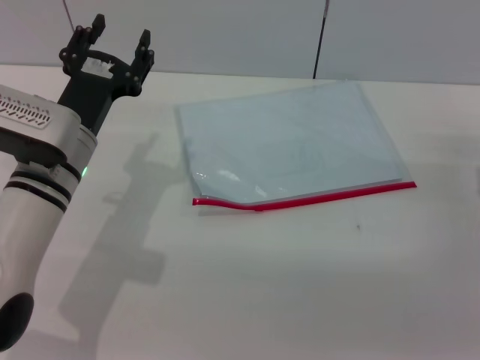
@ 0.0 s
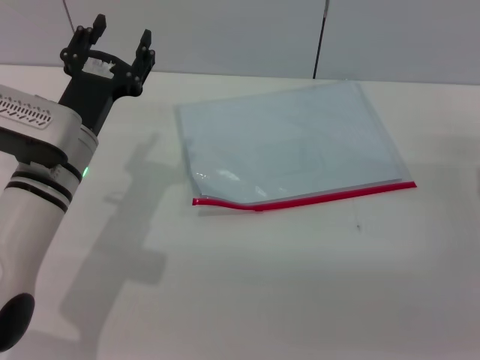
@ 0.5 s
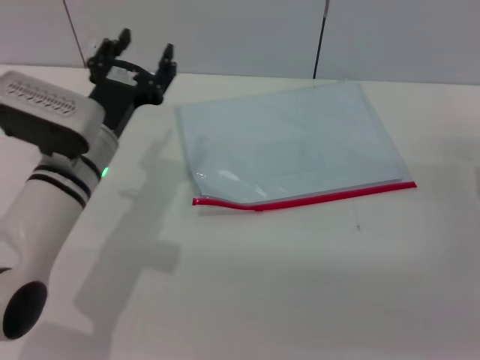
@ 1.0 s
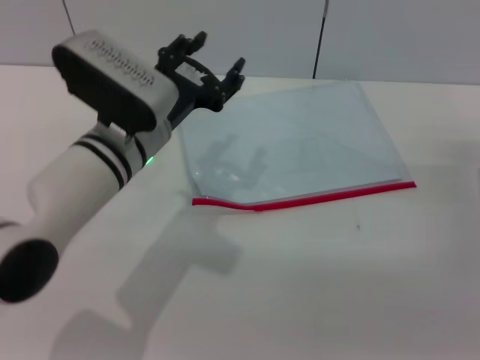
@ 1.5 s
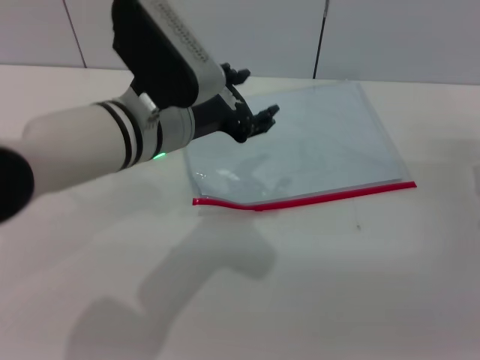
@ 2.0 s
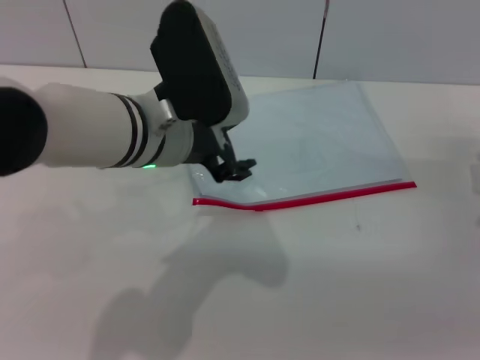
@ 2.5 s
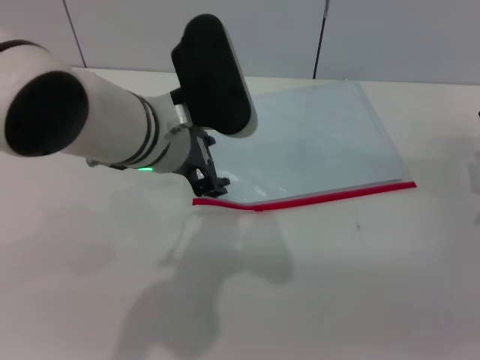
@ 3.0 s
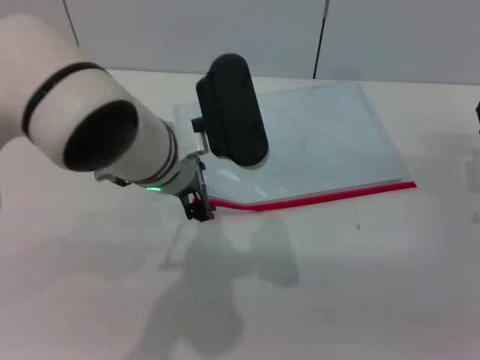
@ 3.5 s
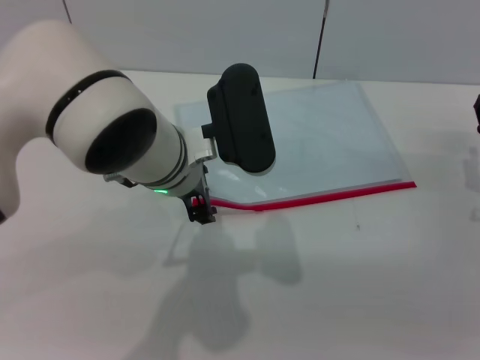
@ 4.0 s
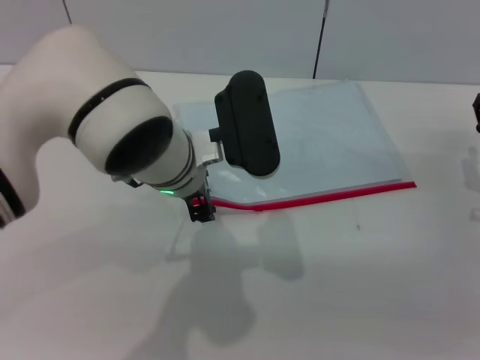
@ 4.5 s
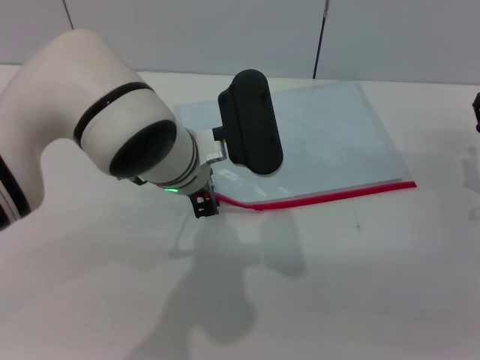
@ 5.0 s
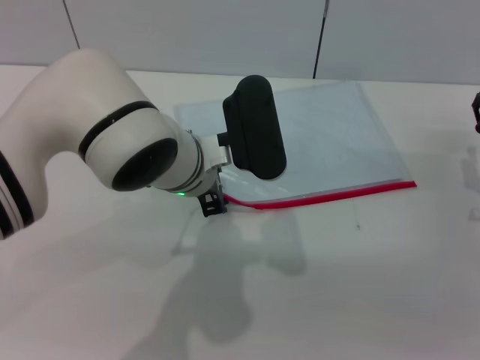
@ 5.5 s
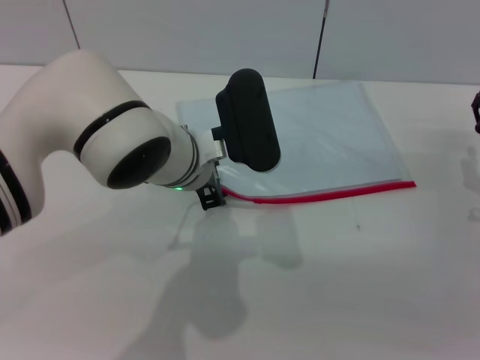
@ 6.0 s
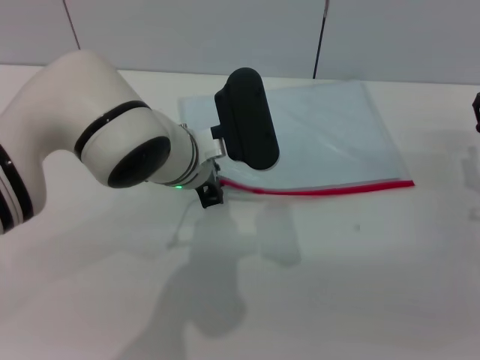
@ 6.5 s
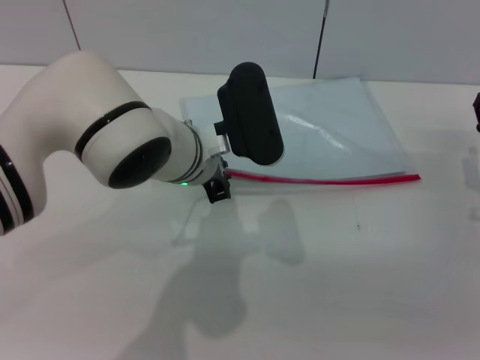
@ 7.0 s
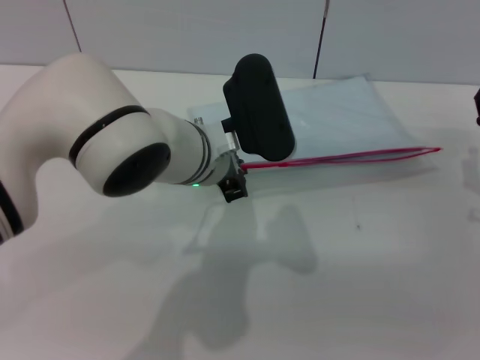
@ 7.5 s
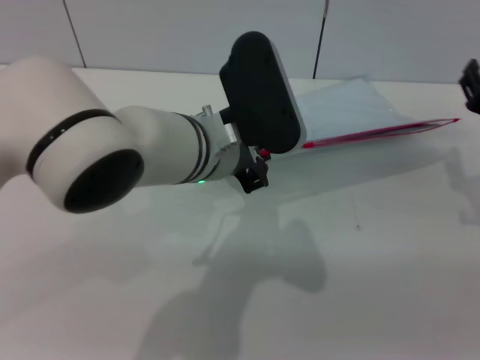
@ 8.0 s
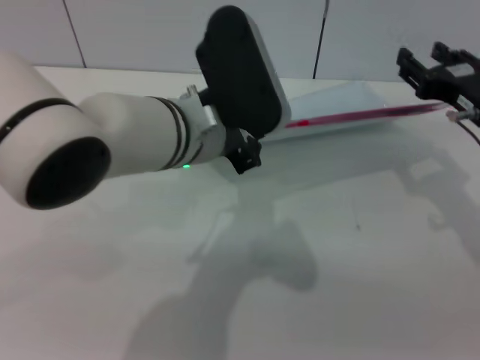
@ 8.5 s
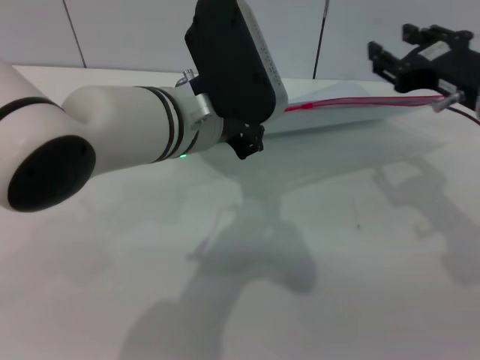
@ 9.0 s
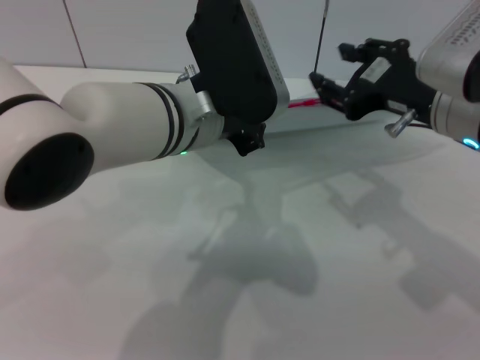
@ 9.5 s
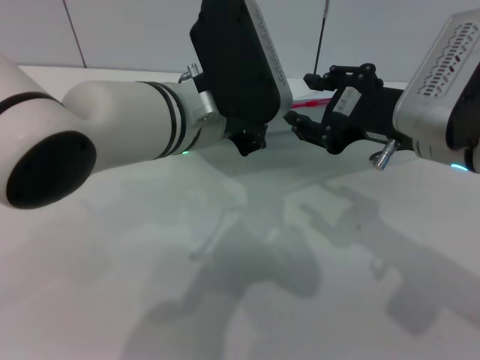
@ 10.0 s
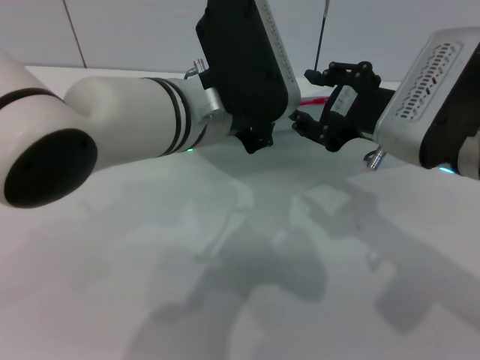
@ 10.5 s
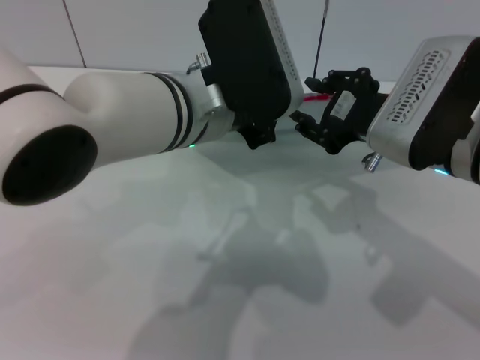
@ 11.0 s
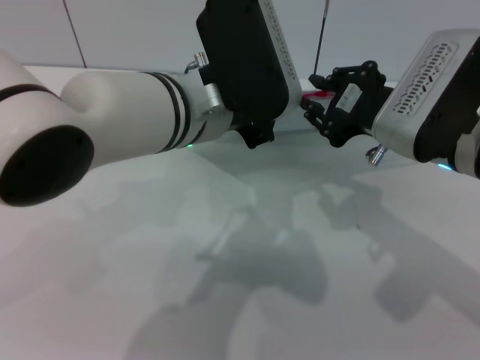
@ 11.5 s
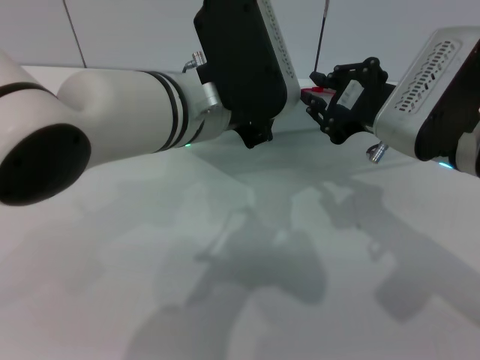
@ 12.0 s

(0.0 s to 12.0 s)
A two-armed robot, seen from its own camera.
Step, 0.0 s - 9.0 s: Pick up the transparent plastic bag with the left gripper.
0.0 s - 2.0 s: The left gripper shifts roughly 10 cm to the right and upward.
4.0 s - 6.0 s: The grippers stay close to where they were, moving slightly.
6.0 s - 8.0 s: The left gripper closes.
8.0 s - 10.0 s: The right gripper is displaced upward and to the left by approximately 15 cm.
10.0 s - 12.0 s: The right gripper closes its fingers.

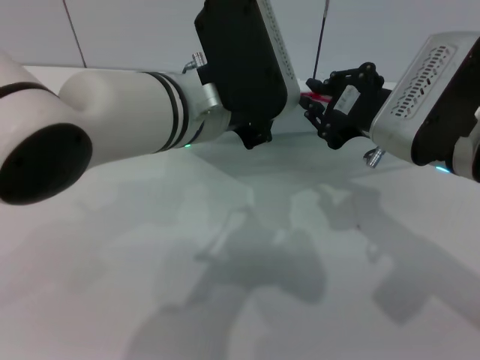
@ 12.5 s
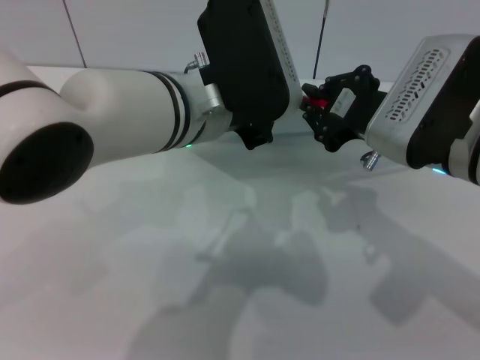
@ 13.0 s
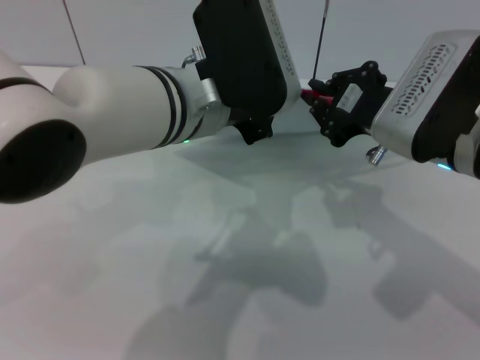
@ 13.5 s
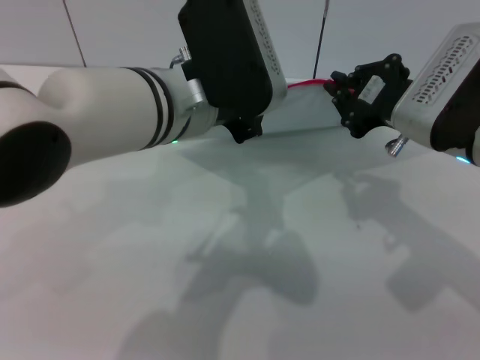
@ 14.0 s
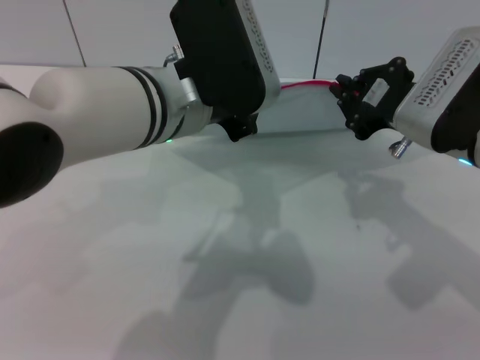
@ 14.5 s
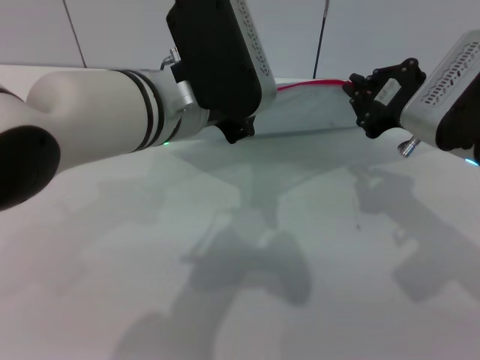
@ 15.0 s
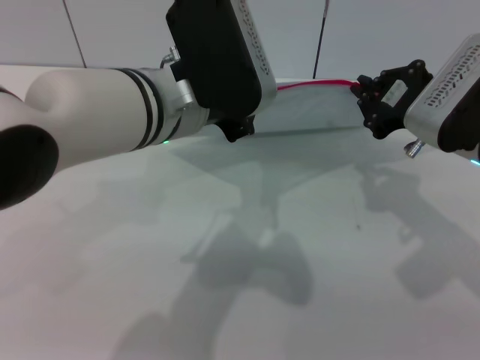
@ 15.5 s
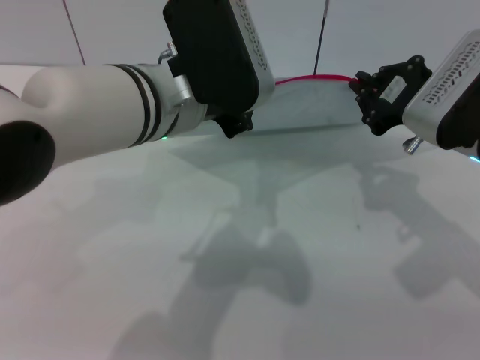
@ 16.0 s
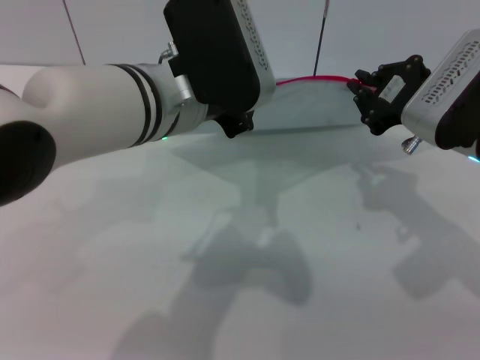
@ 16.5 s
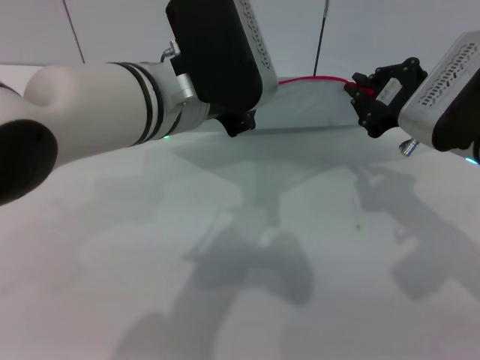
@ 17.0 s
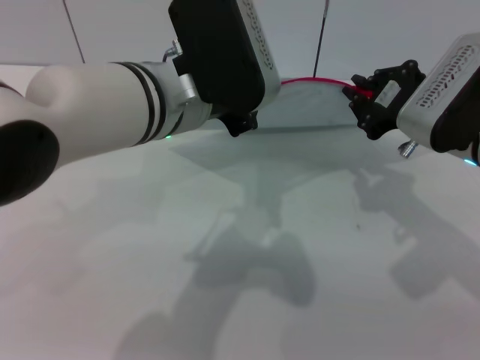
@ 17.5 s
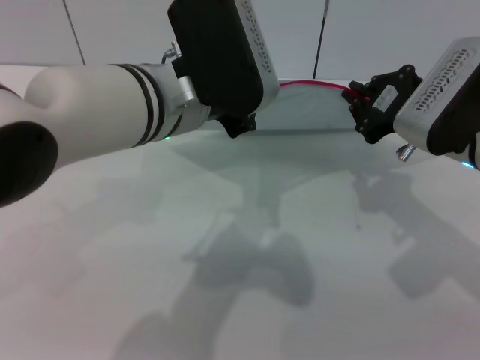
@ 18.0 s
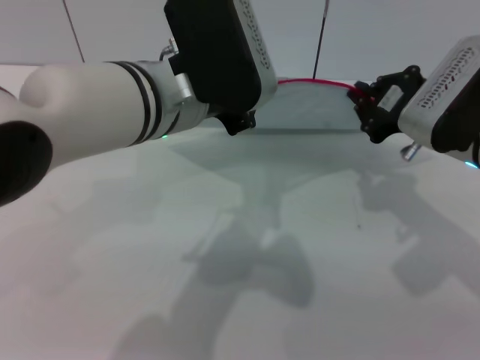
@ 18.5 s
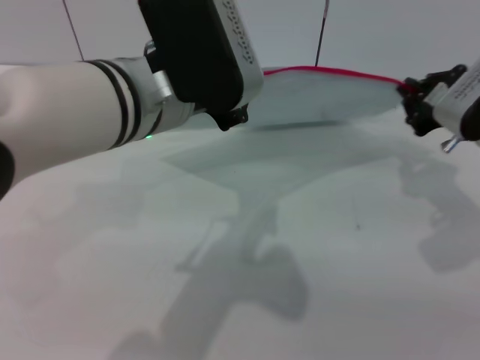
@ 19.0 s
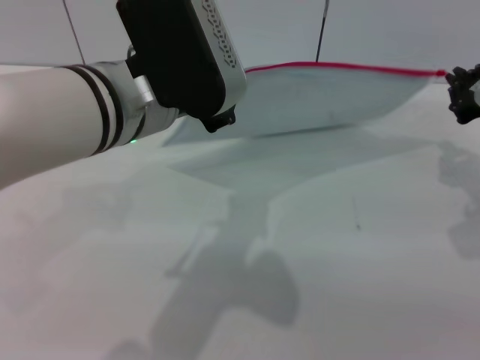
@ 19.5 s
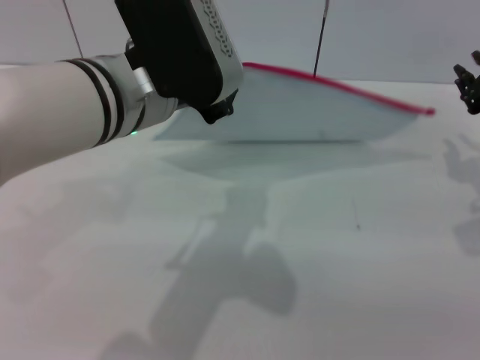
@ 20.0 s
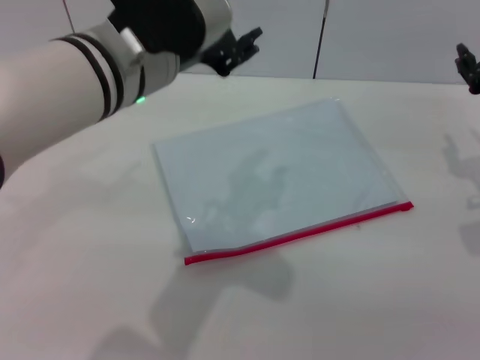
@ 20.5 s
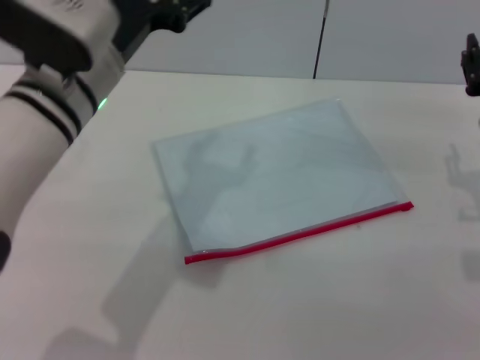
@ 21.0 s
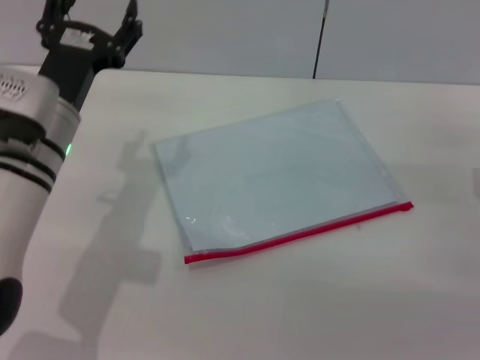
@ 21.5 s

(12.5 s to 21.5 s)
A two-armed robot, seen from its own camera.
Step, 12.5 s - 19.5 s: Pulling up the zipper on the transparent plastic bag with the right gripper to close it.
12.5 s - 17.0 s: The grippers move only a little.
17.0 s - 19.5 s: The right gripper moves to the right, roughly 10 cm.
19.5 s - 21.5 s: The left gripper is displaced downward and to the left by approximately 15 cm, and opens up. Meanwhile the right gripper moves downward and backward, about 10 cm, and opens its fingers.
